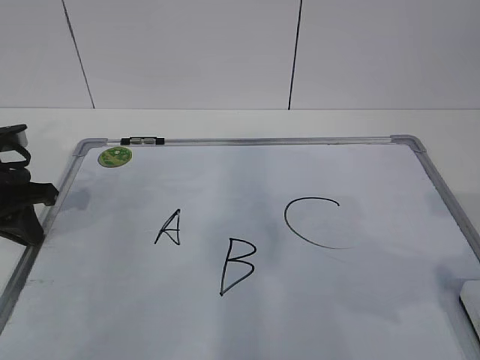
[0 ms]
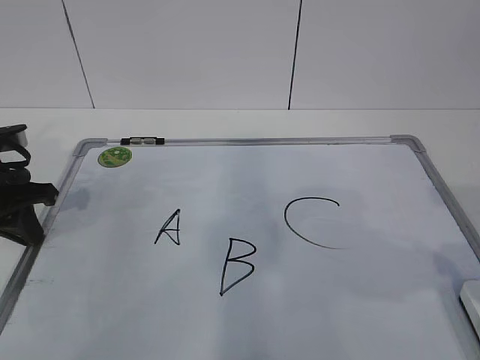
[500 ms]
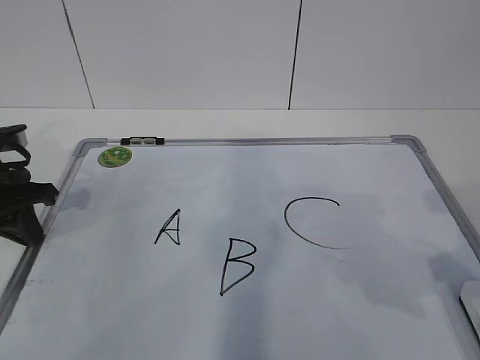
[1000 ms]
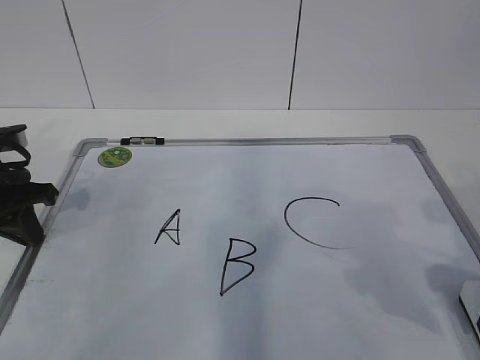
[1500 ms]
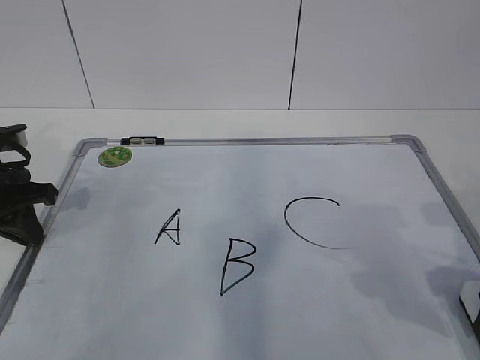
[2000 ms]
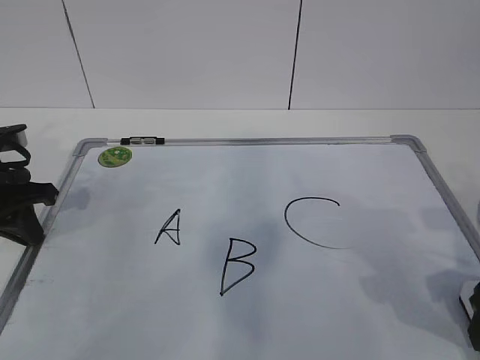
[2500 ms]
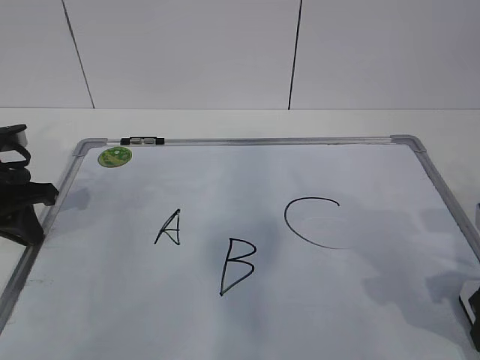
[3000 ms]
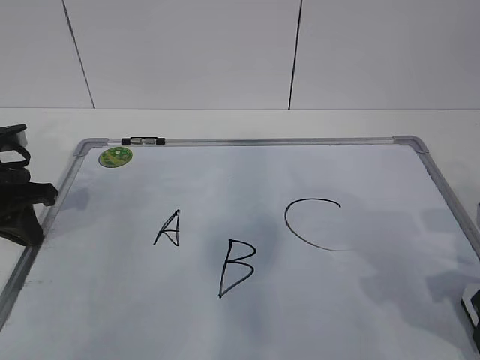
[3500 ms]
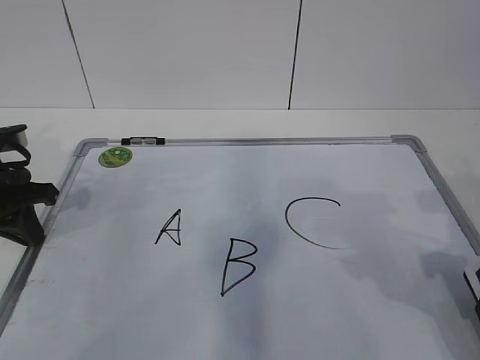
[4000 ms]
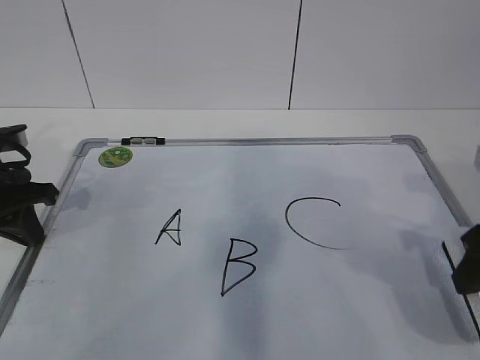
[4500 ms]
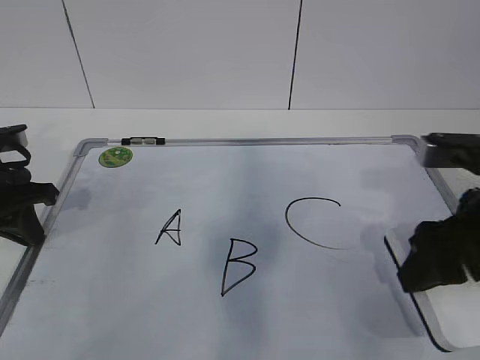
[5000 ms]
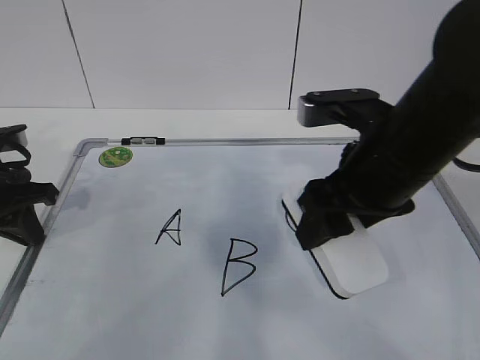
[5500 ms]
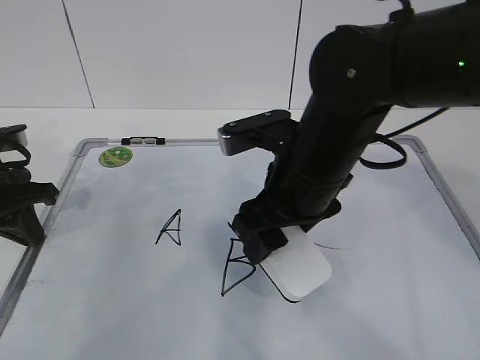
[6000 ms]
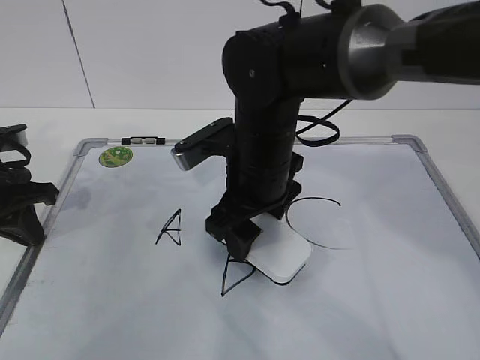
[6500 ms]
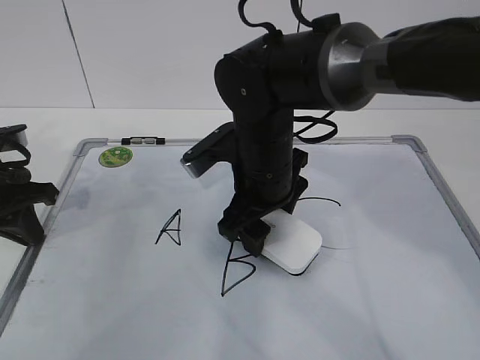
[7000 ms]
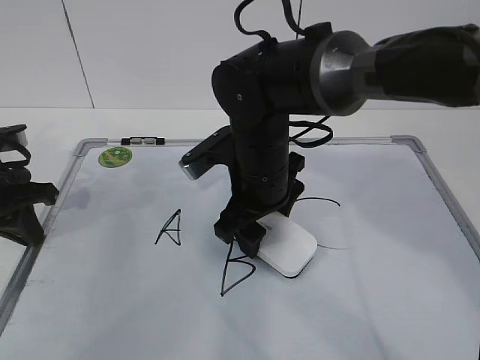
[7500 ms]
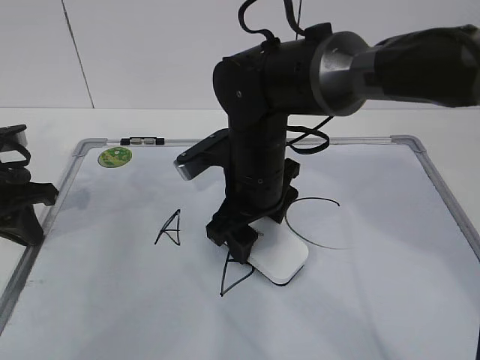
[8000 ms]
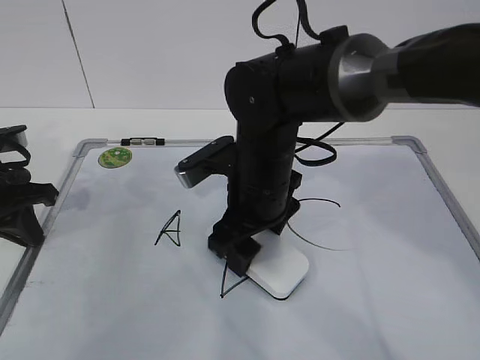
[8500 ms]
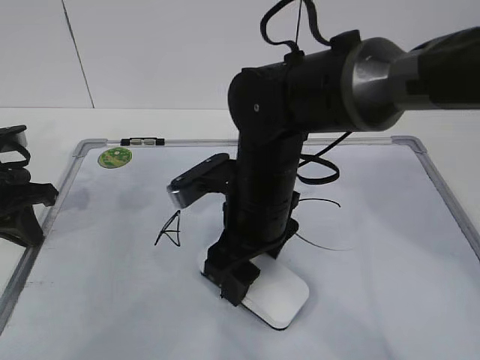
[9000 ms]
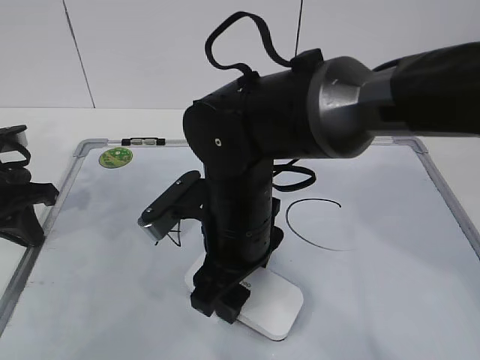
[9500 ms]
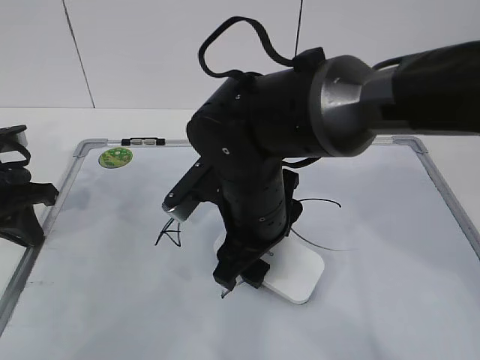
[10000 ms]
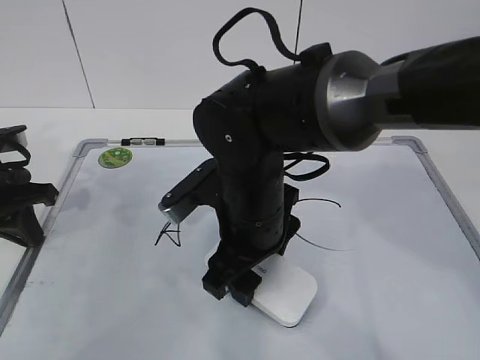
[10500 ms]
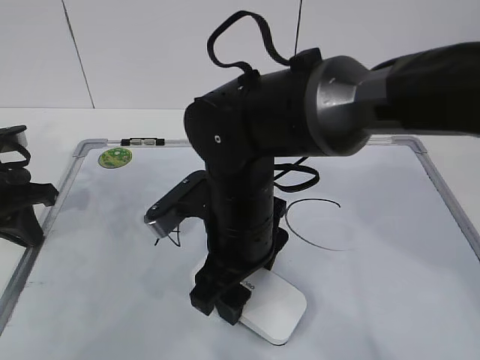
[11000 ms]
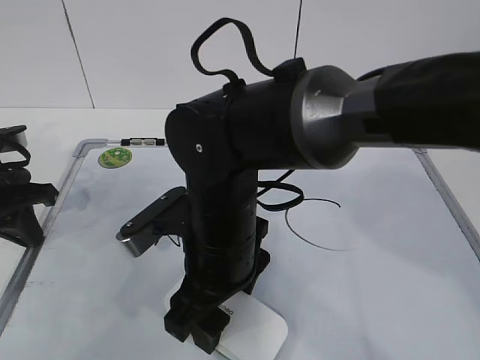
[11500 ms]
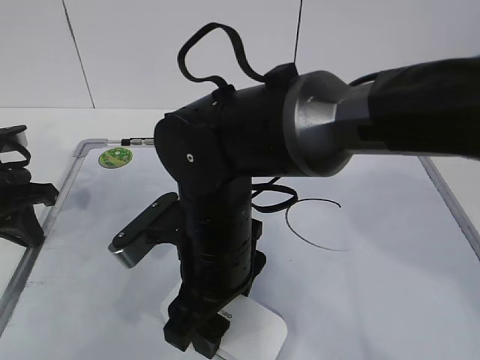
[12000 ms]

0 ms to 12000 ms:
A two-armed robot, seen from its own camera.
Task of the whole recording: pick up the eraser on the blackboard and erase the letter "B".
Step, 1500 ms to 10000 ms: Erase the letter B with your right hand.
0 ms to 2000 ms: The right gripper moves downward and forward, approximately 10 cm.
2000 ms to 4000 ms: The right gripper closes up.
4000 ms to 6000 ms: The right gripper heads to the left, covering roughly 20 cm.
6000 ms to 8000 ms: The right gripper moves about 10 cm.
10000 ms to 12000 ms: The right gripper changes place by some 5 cm.

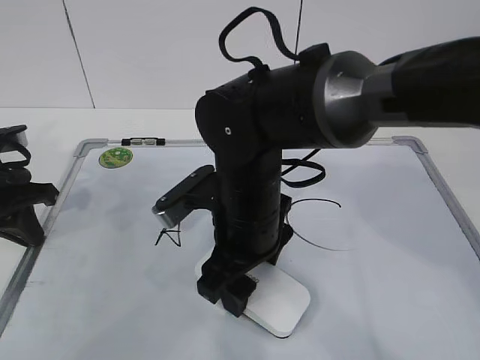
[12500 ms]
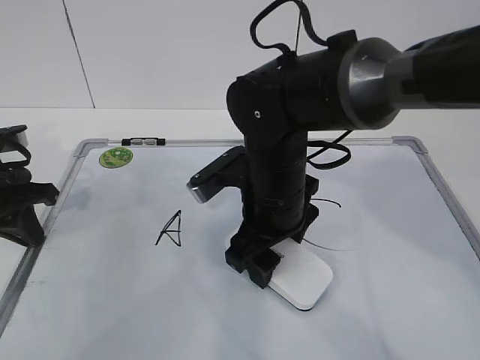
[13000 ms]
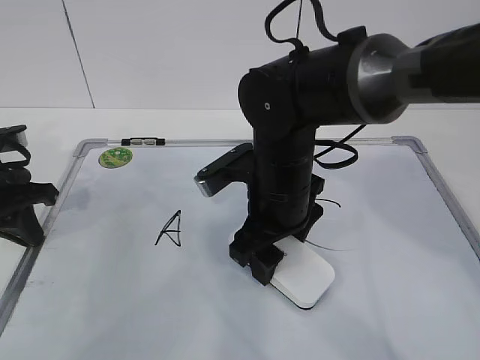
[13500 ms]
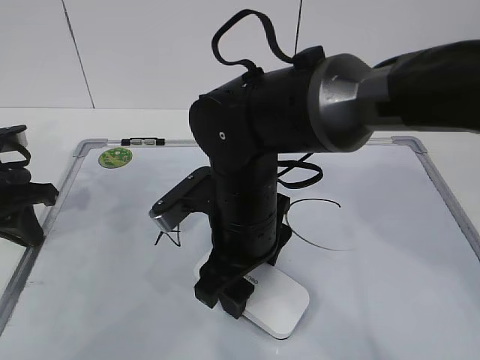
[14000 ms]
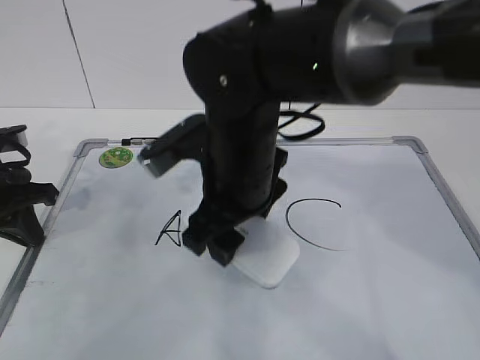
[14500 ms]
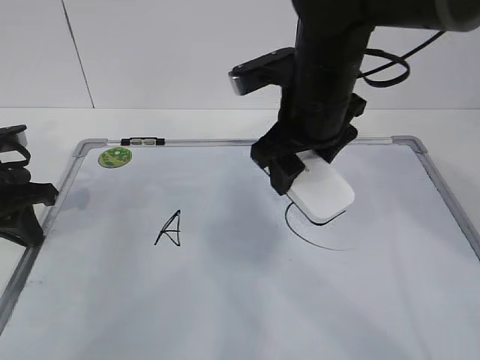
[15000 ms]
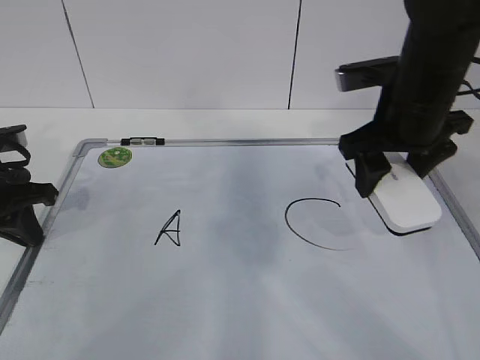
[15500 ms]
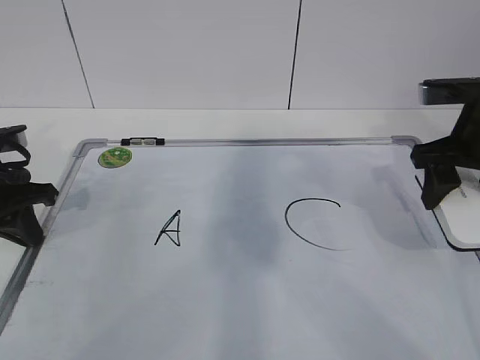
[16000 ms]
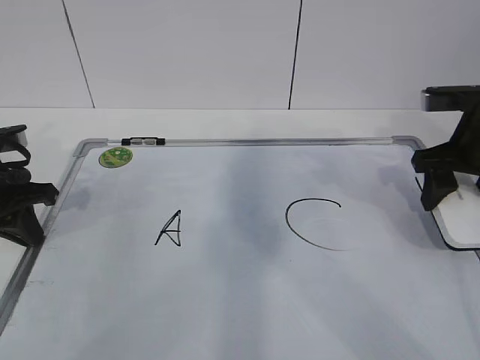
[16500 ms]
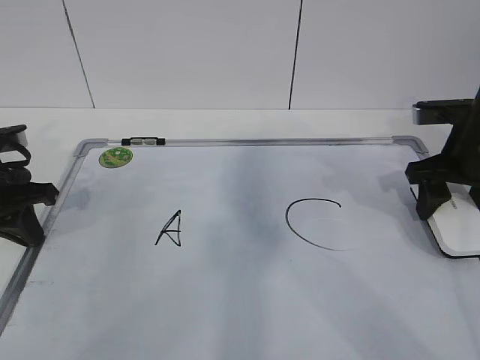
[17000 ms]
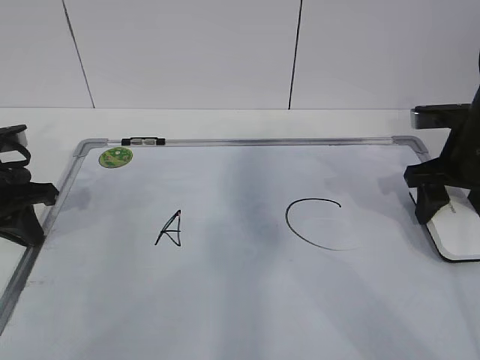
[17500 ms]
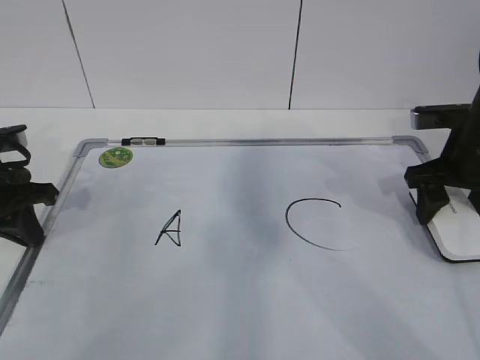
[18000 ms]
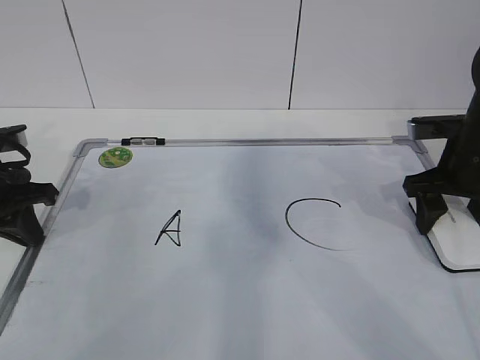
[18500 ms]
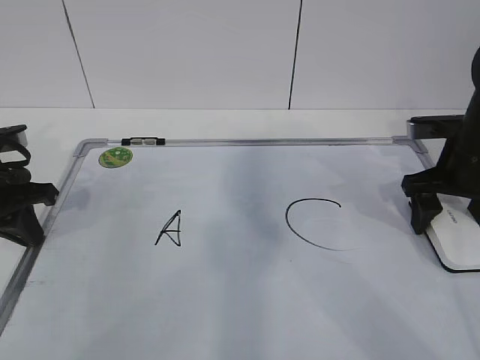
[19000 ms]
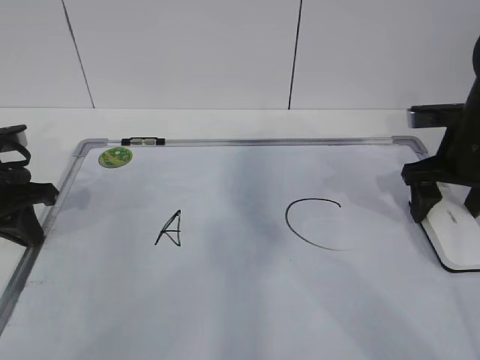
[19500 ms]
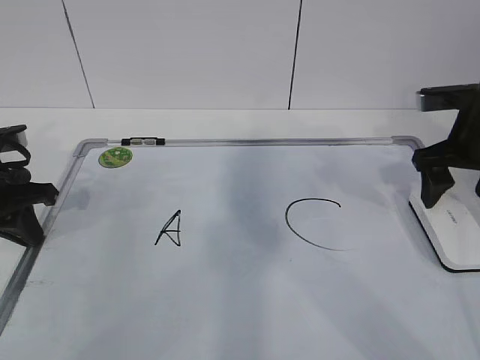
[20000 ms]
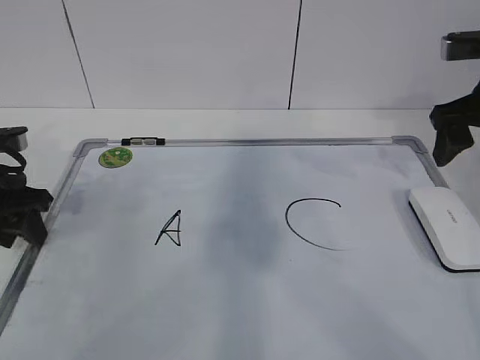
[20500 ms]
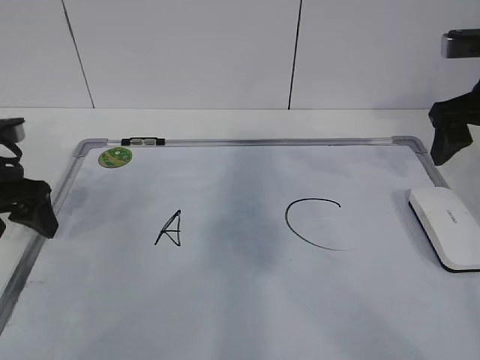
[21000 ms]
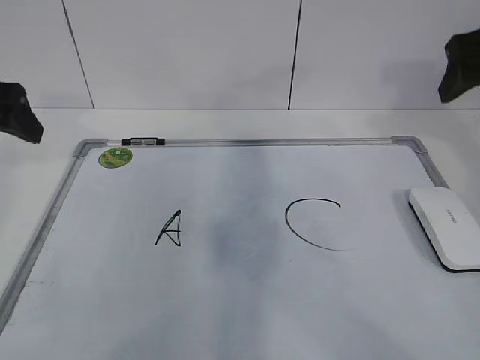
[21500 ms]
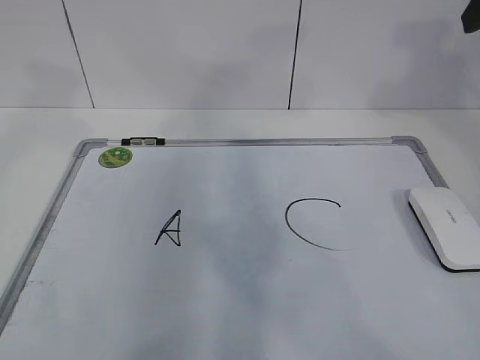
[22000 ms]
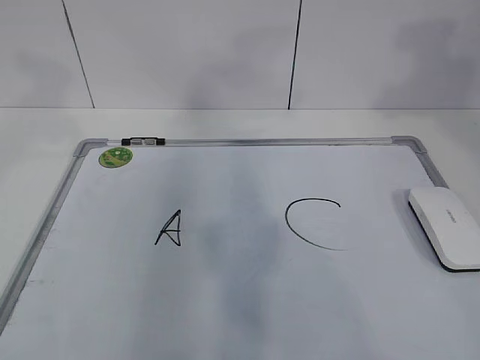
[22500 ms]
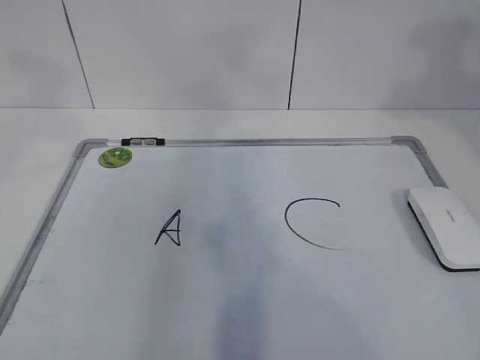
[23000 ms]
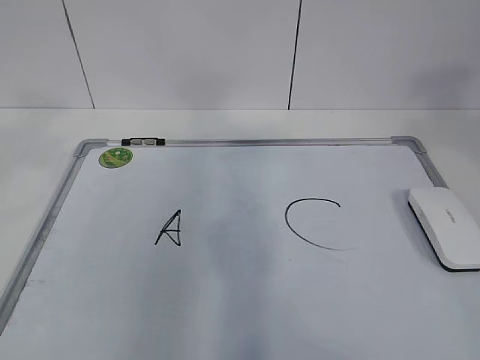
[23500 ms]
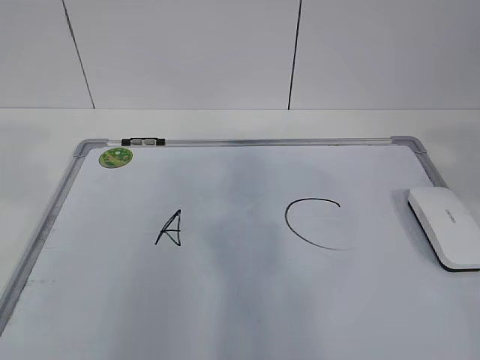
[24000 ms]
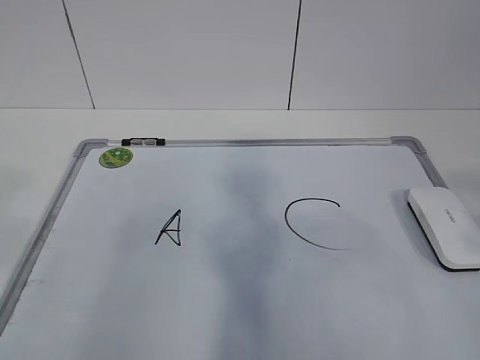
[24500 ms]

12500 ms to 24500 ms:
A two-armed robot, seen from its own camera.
Task of the whole recording: pick up the eraser on the blackboard and erase the letter "B".
14500 ms to 16500 ms: The right gripper is displaced to the right by some 25 cm.
16500 ms to 18500 ms: The grippers stay close to where they were, moving slightly.
18500 ms to 20500 ms: The left gripper opens its fingers. Meanwhile the right gripper is displaced upward by approximately 10 cm, and opens up.
20500 ms to 22500 ms: Both grippers move upward, some 20 cm. The left gripper opens.
22500 ms to 24500 ms: Both grippers travel together backward, about 20 cm.

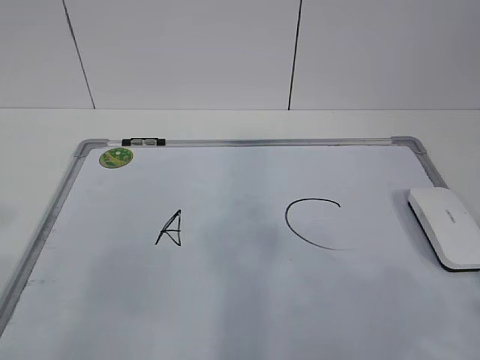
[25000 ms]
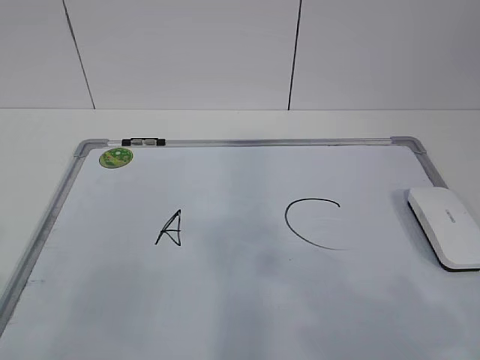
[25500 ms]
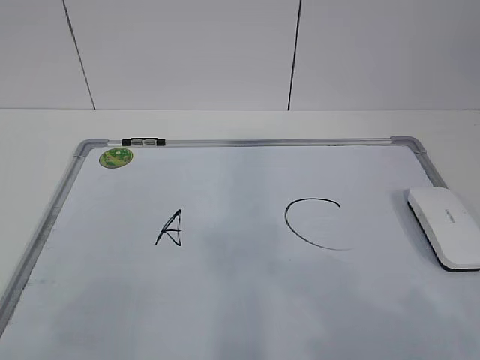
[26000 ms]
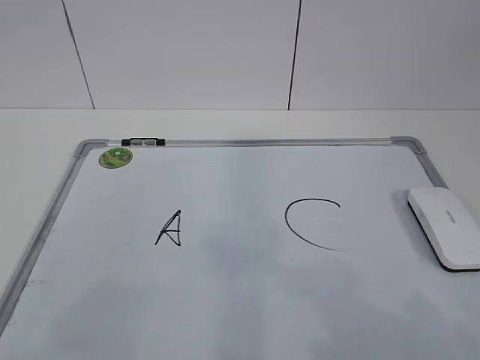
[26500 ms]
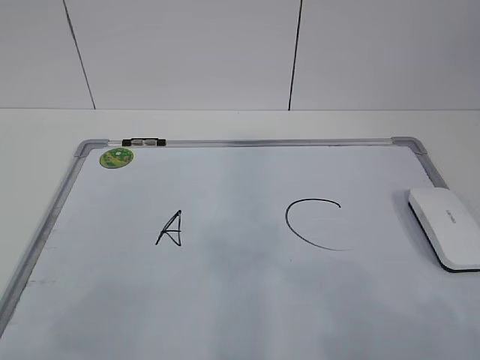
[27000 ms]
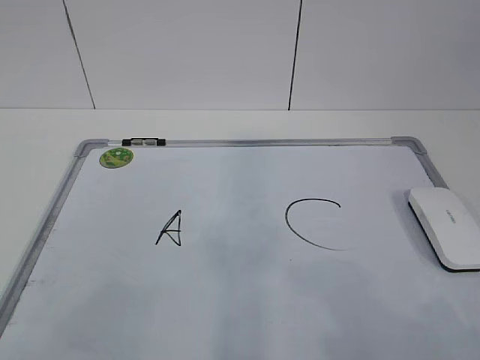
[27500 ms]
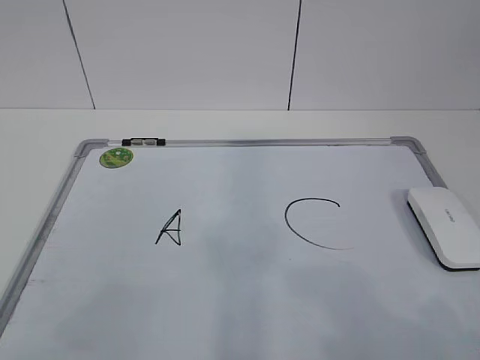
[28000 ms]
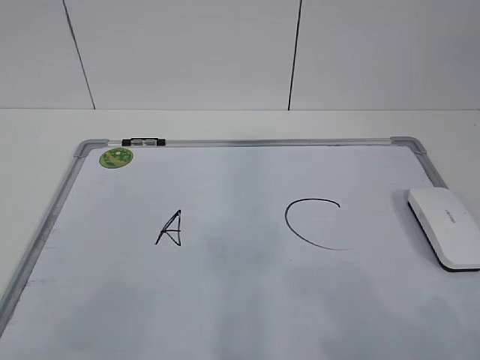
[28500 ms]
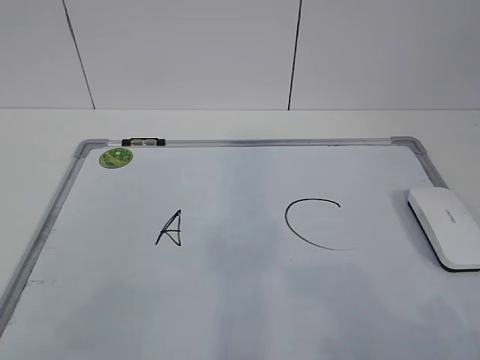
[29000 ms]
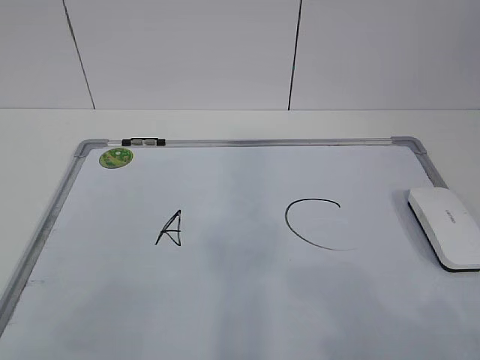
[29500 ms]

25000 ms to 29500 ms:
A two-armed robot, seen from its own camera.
Task of the whole recording: pick up the eraser on the blackboard and erase the letter "B".
27000 ms to 29500 ms: Both grippers stay put.
